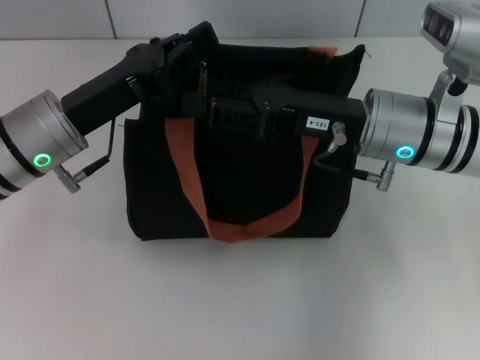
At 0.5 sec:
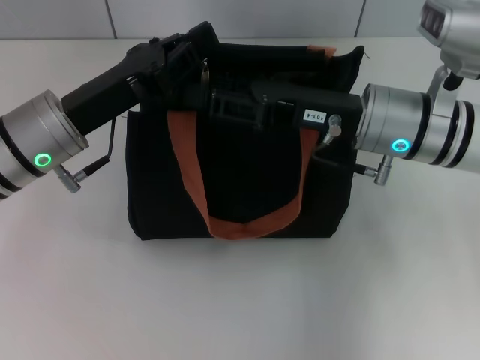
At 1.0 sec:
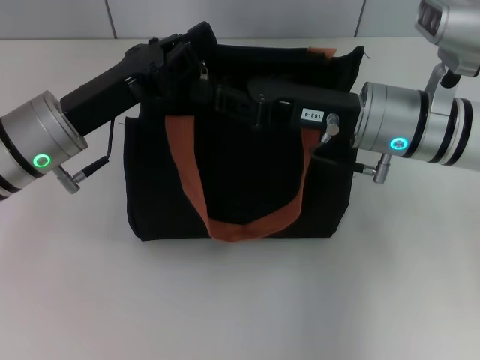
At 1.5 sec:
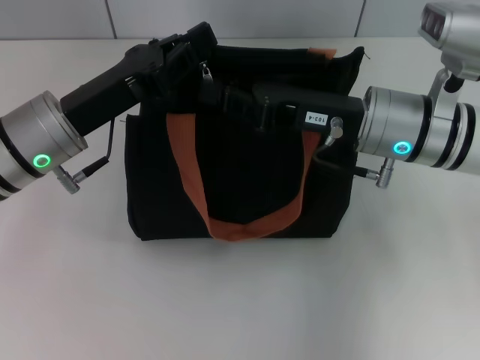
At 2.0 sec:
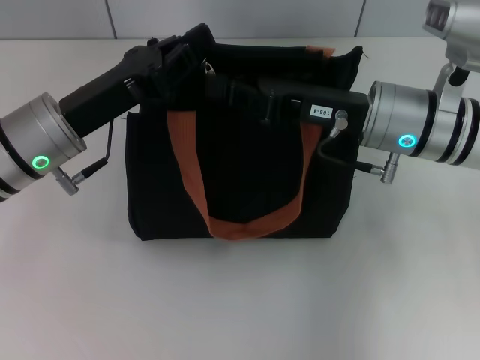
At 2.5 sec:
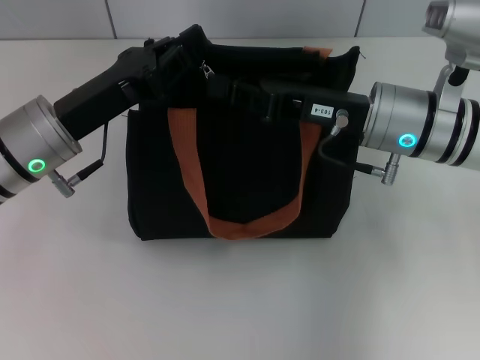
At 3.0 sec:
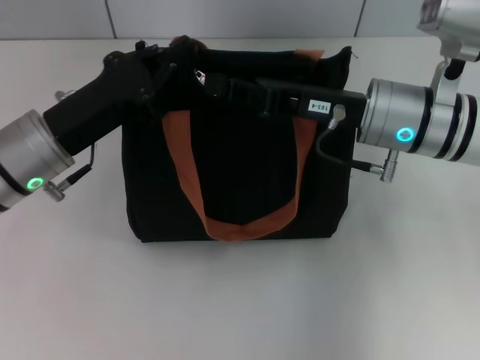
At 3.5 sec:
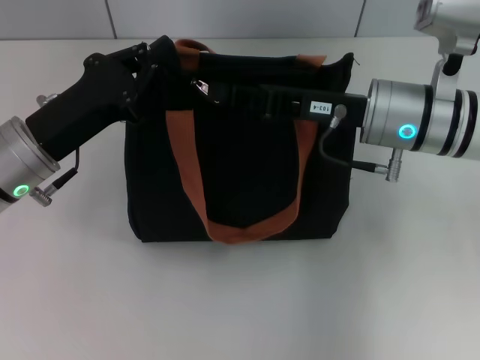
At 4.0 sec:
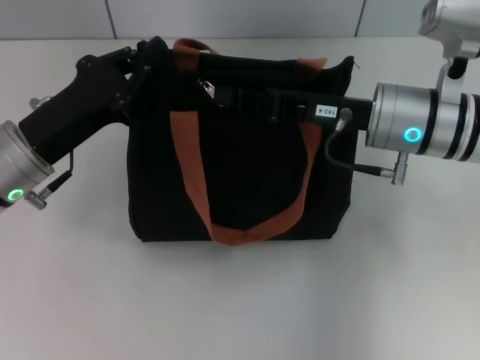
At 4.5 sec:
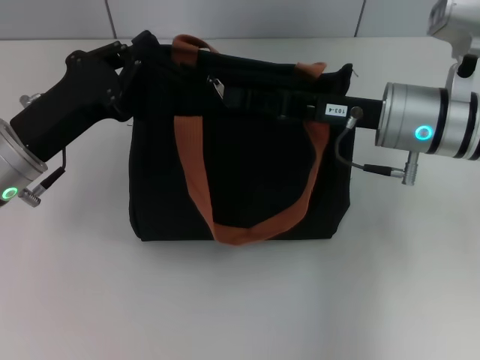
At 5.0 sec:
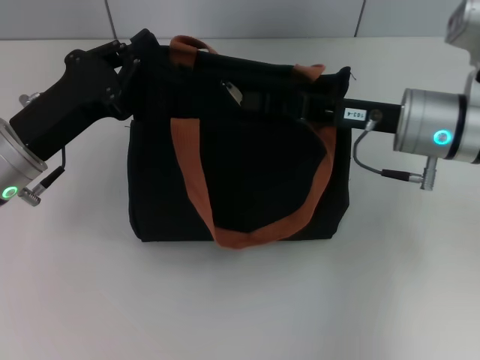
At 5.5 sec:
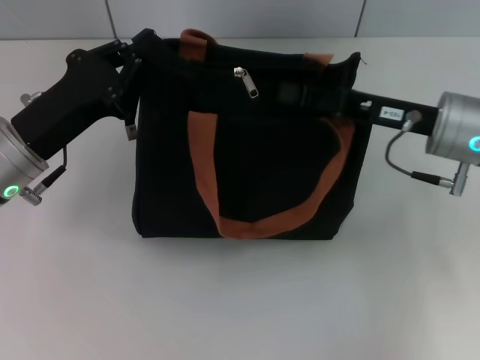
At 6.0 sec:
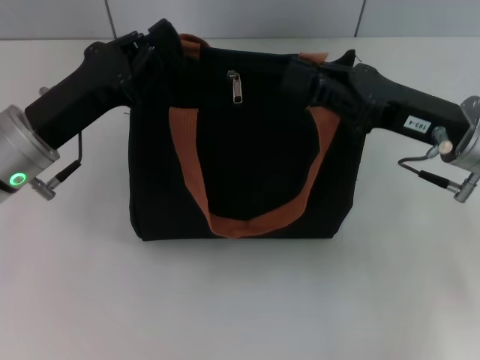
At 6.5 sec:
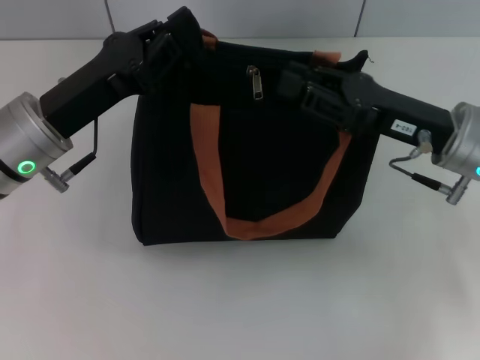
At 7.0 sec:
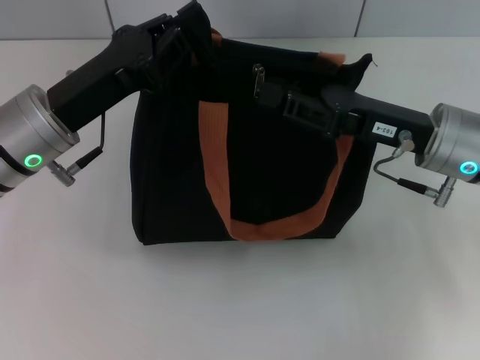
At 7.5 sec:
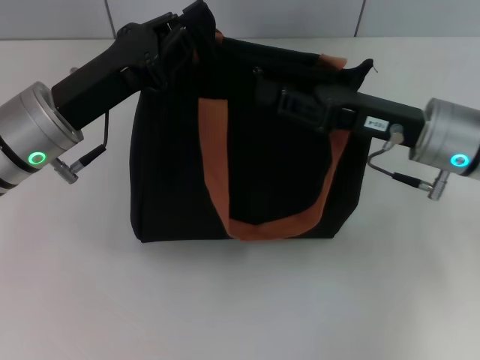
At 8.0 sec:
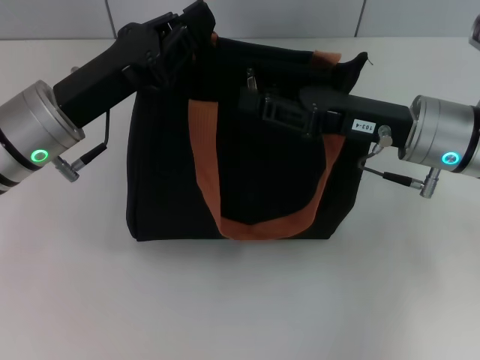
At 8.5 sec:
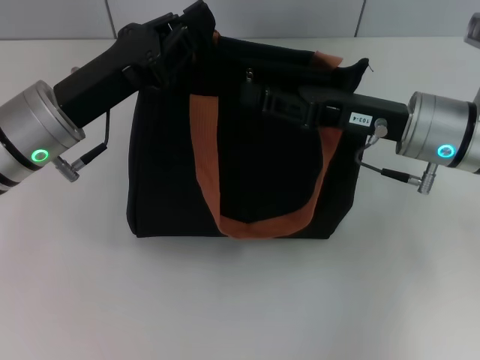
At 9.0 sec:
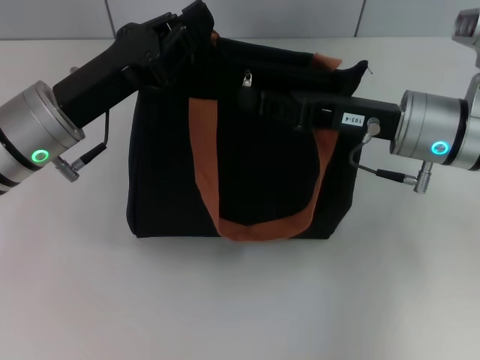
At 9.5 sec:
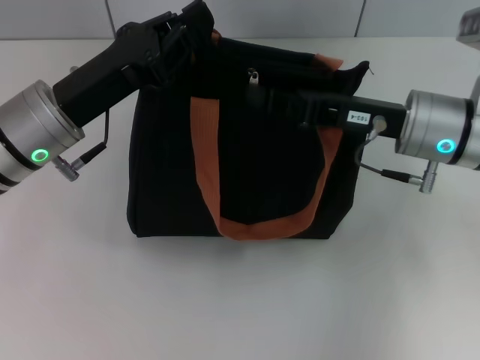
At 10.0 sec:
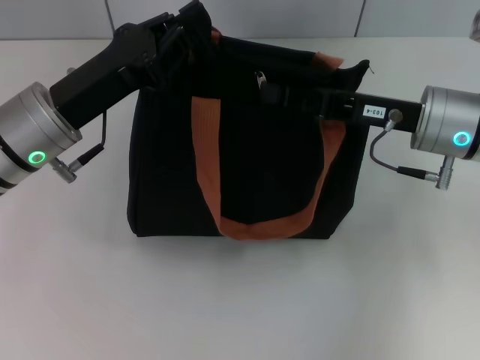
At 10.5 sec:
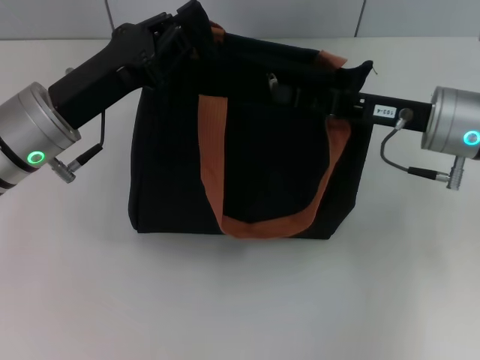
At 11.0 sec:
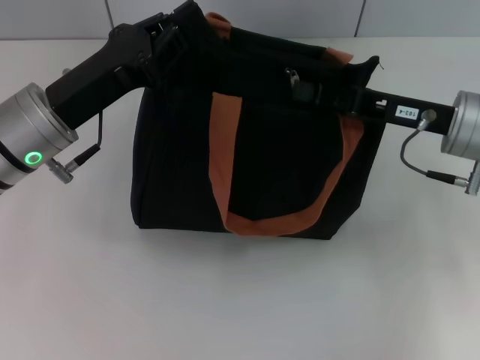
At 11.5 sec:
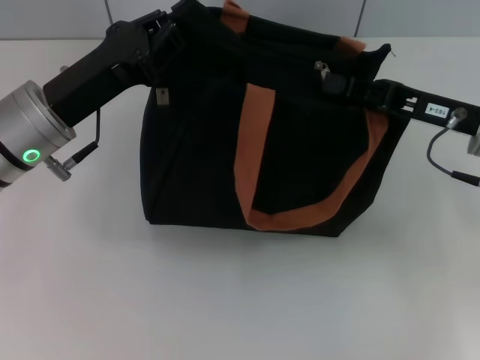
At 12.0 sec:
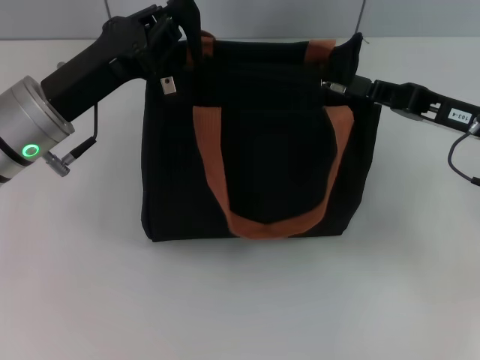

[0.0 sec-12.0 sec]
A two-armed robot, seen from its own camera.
0.0 sec to 2.0 sec: The right gripper closes its fingers.
2.0 sec to 4.0 sec: The grippers stay close to where they were, moving slightly.
4.0 sec to 6.0 sec: The right gripper heads to the right, covering approximately 5 cm.
6.0 sec to 8.0 sec: The right gripper opens its fingers.
8.0 sec to 10.0 sec: The right gripper closes its fingers.
10.0 sec to 12.0 sec: The right gripper is displaced to the right by approximately 5 cm.

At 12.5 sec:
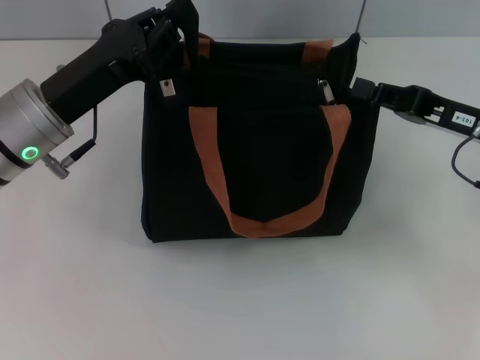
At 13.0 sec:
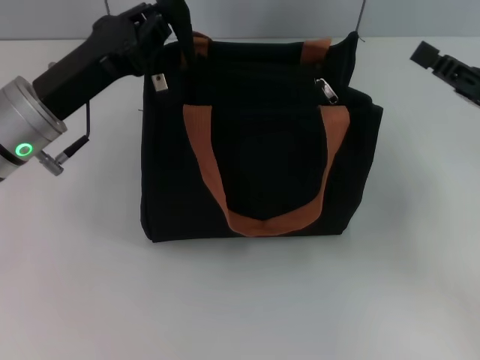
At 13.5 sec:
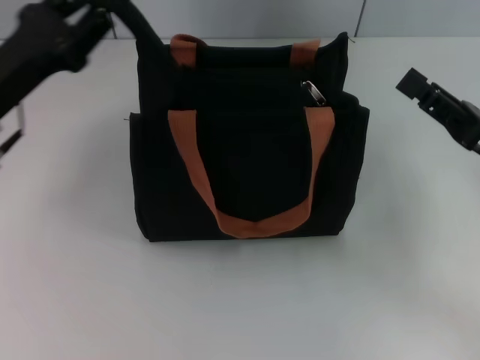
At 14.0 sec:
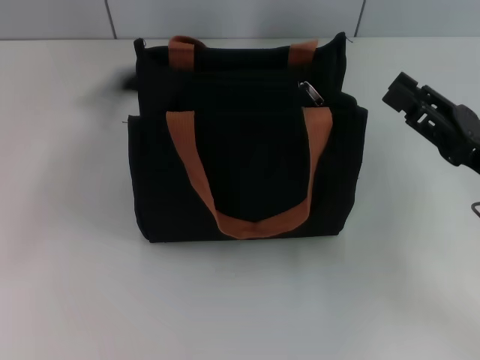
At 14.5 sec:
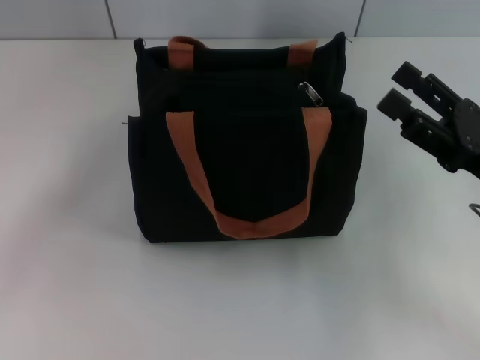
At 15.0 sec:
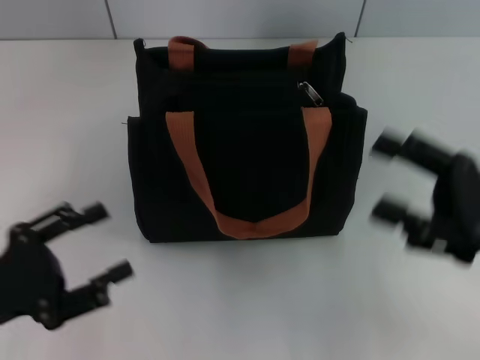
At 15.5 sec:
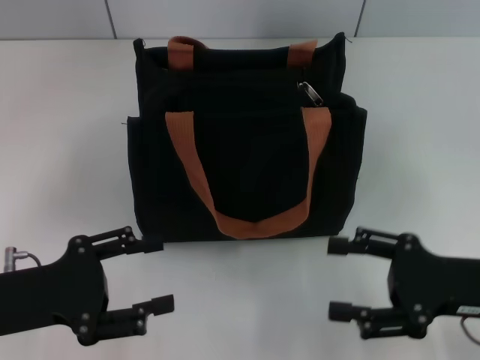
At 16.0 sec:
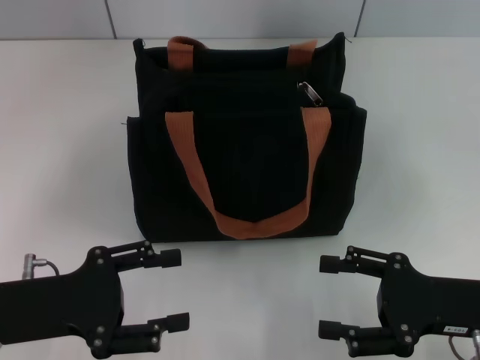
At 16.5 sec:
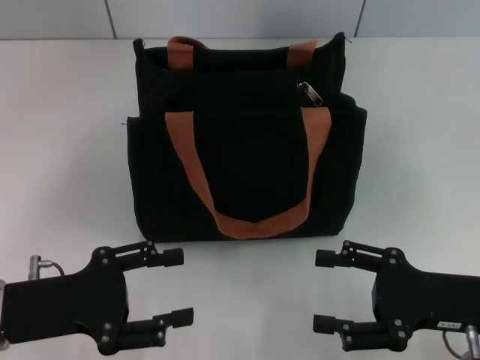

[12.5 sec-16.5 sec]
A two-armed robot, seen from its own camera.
Step, 13.0 sec to 13.5 sec: Grab the zipper with your left hand.
12.5 sec to 14.5 sec: The left gripper travels to the left and backward by about 20 cm, and opens its fingers. The right gripper shifts roughly 5 cm backward, and opens up.
14.5 sec to 16.5 sec: The right gripper shifts by some 5 cm. Meanwhile the left gripper travels to the right by roughly 10 cm.

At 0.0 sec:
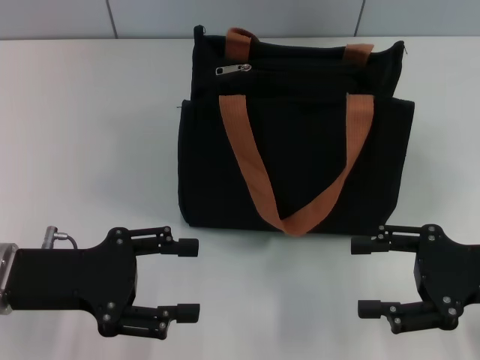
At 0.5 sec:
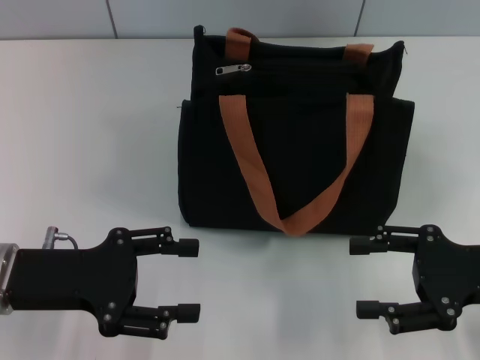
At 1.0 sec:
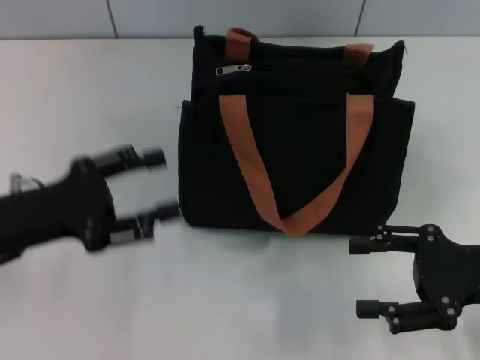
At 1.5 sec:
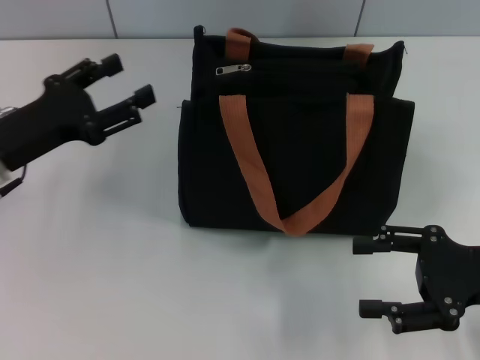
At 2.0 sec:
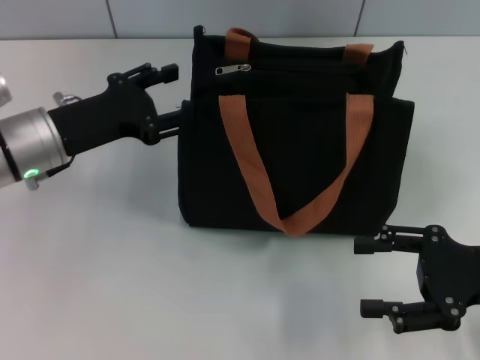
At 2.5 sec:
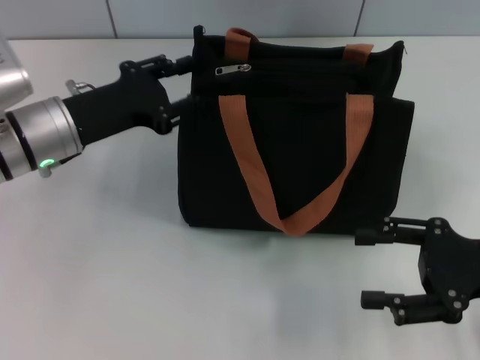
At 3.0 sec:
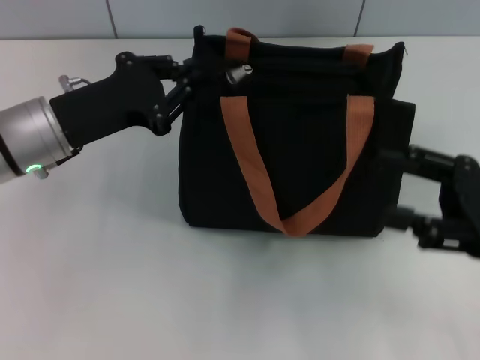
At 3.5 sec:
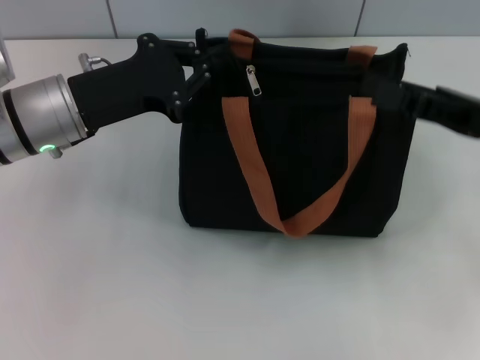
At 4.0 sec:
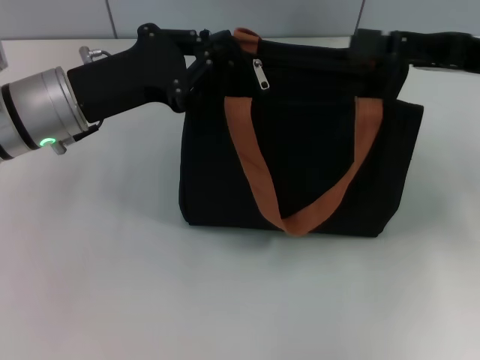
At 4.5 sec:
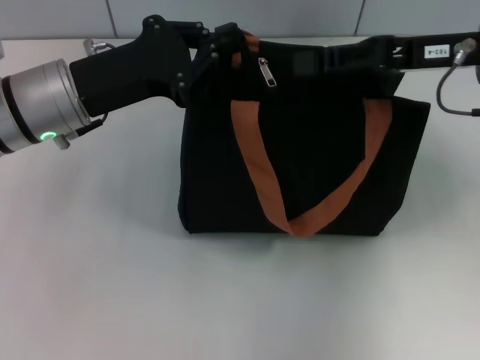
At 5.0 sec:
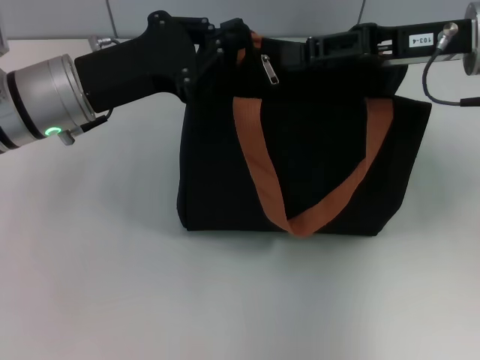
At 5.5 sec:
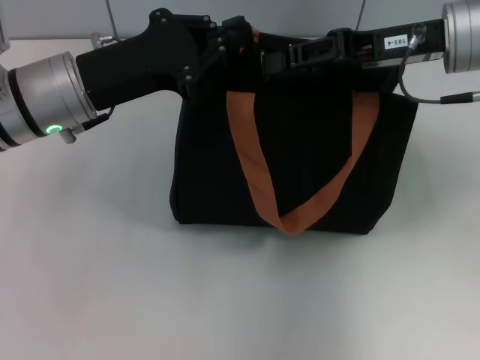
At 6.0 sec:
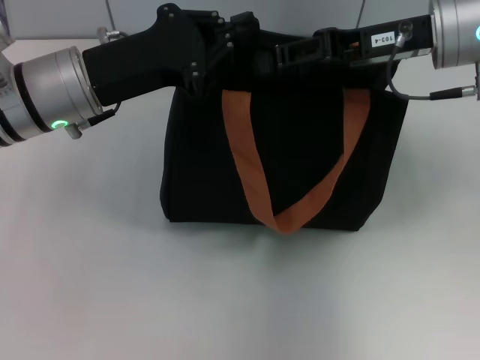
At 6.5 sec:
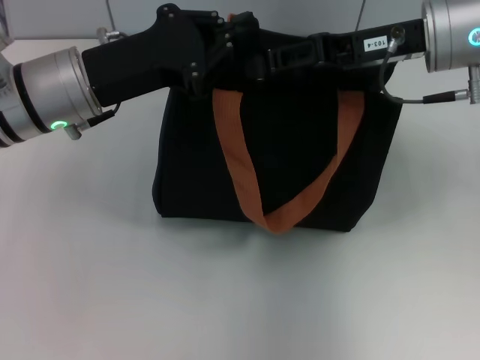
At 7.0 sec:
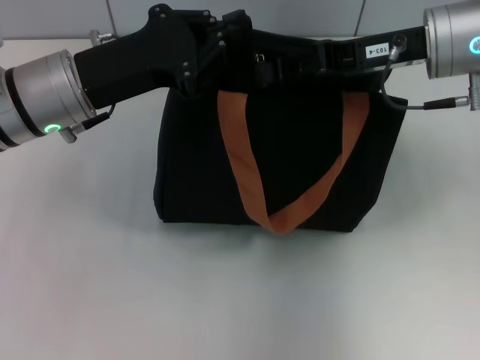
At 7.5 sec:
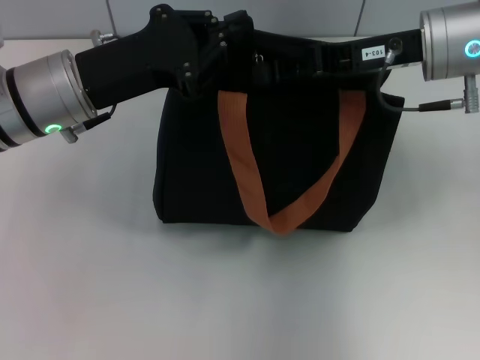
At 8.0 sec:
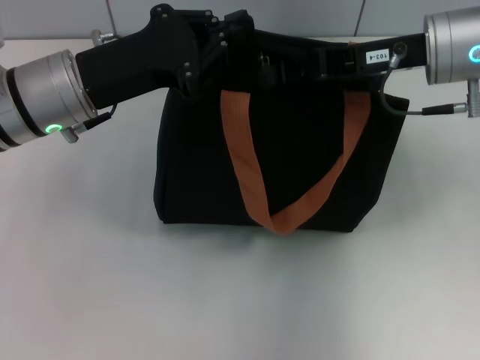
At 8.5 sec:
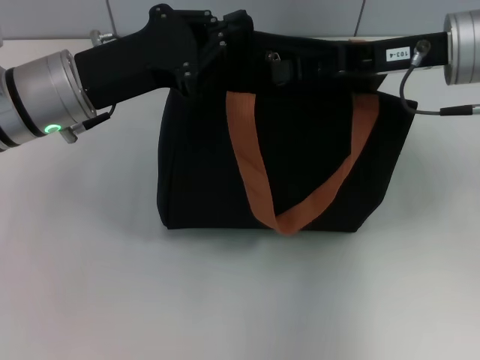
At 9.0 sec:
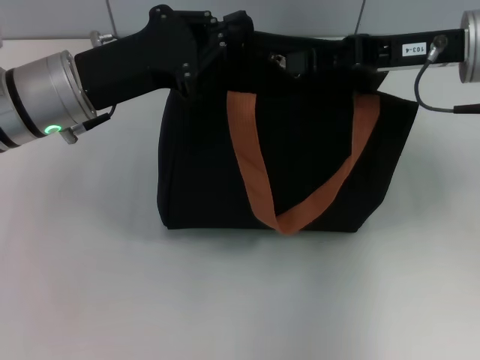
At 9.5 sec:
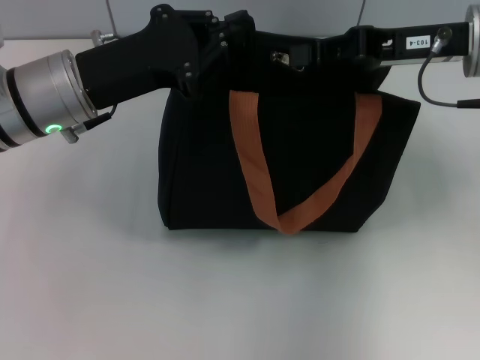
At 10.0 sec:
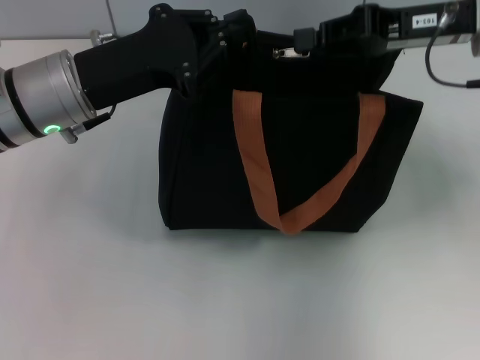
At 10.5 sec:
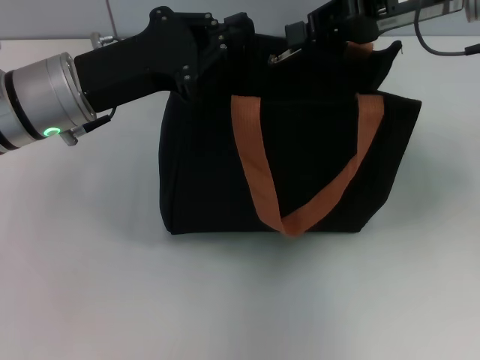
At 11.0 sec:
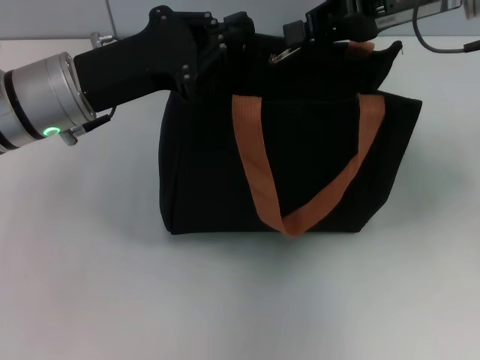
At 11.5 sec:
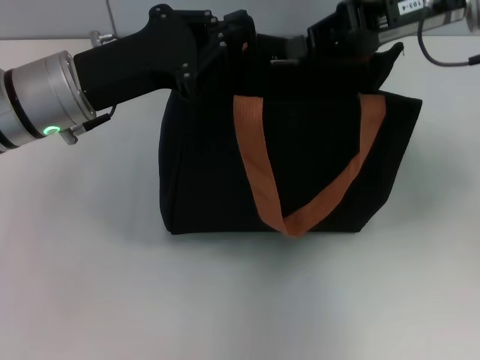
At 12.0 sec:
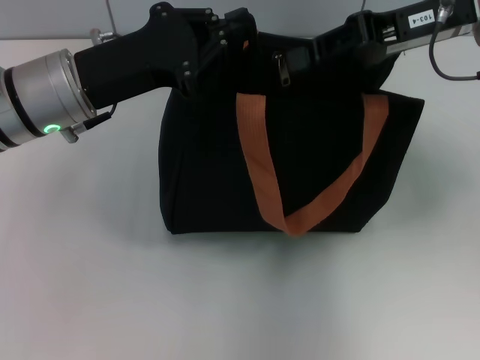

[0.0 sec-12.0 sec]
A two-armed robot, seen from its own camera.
0.0 sec to 2.0 sec: The left gripper goes about 10 cm forward.
2.0 sec to 4.0 sec: The left gripper closes up. The right gripper is displaced forward and upward by about 15 cm.
4.0 sec to 6.0 sec: The right gripper moves to the left, approximately 10 cm, and closes.
6.0 sec to 8.0 sec: The right gripper closes.
8.0 sec to 10.0 sec: The grippers make only small movements.
10.0 sec to 12.0 sec: The grippers move only a little.
